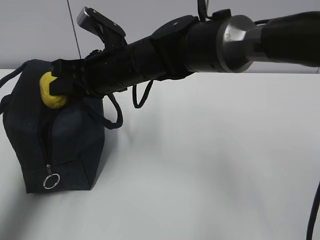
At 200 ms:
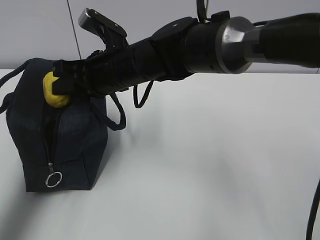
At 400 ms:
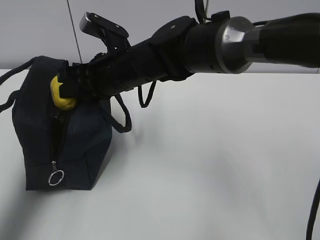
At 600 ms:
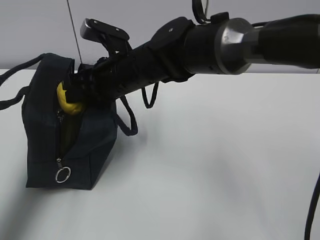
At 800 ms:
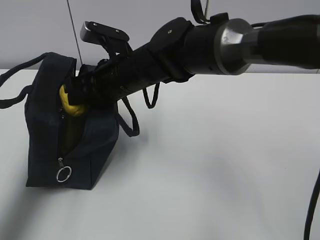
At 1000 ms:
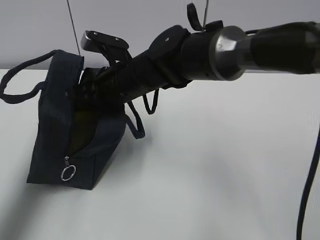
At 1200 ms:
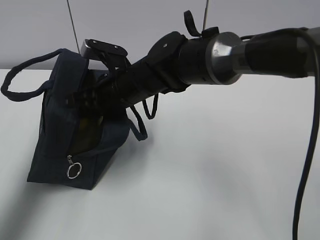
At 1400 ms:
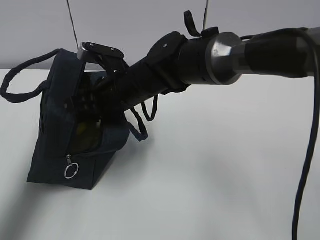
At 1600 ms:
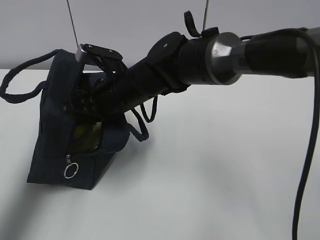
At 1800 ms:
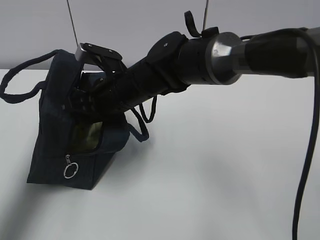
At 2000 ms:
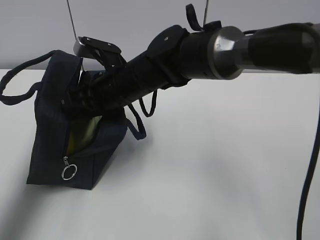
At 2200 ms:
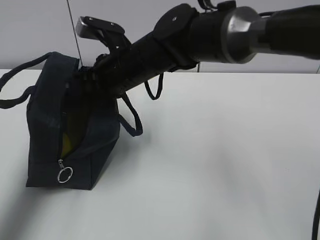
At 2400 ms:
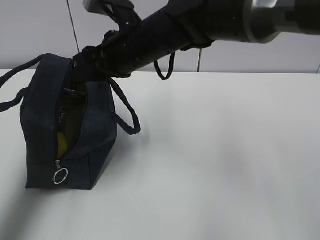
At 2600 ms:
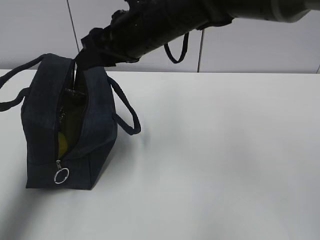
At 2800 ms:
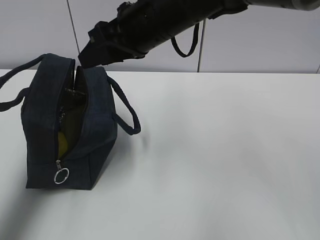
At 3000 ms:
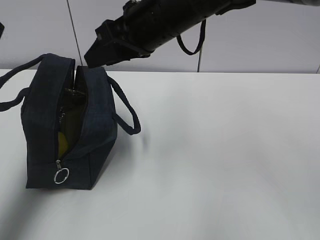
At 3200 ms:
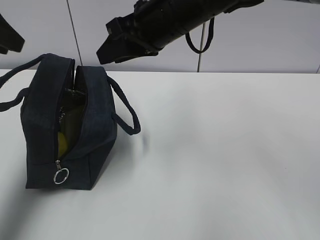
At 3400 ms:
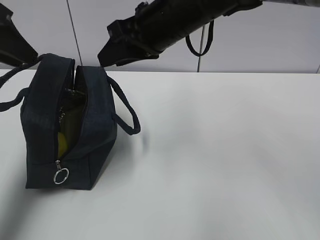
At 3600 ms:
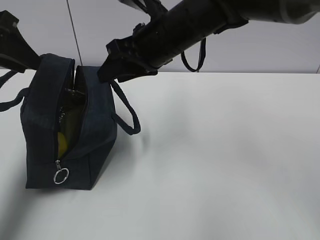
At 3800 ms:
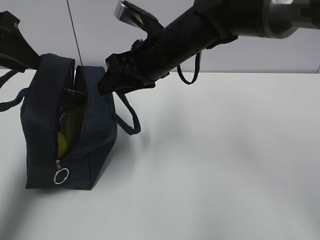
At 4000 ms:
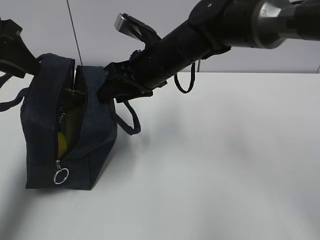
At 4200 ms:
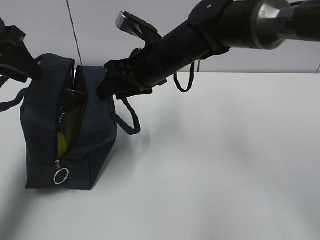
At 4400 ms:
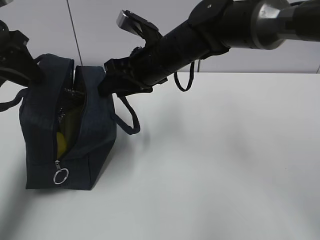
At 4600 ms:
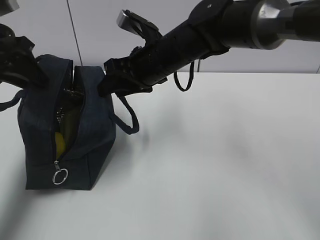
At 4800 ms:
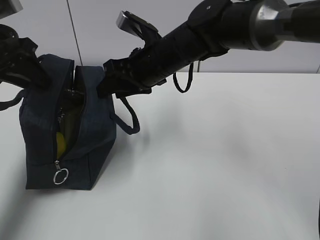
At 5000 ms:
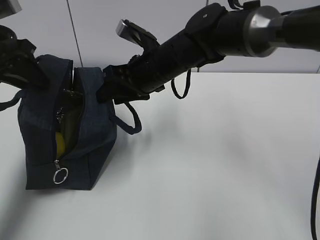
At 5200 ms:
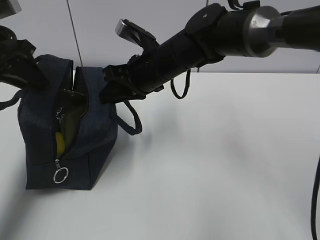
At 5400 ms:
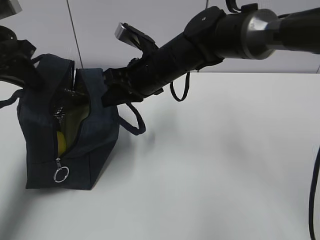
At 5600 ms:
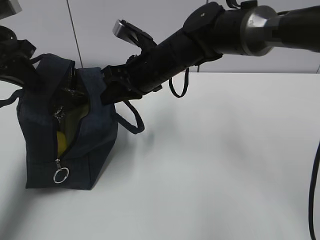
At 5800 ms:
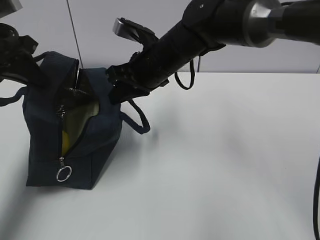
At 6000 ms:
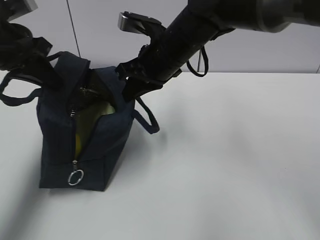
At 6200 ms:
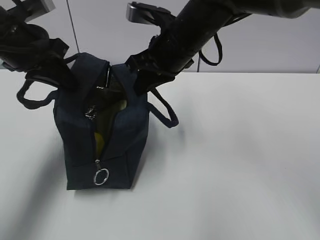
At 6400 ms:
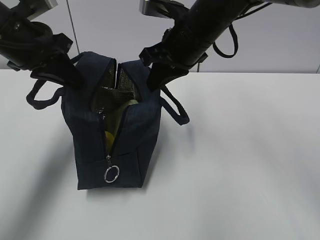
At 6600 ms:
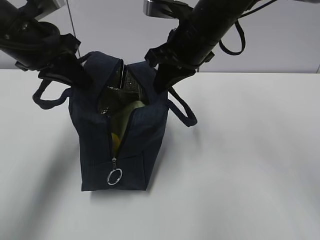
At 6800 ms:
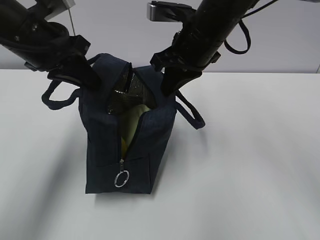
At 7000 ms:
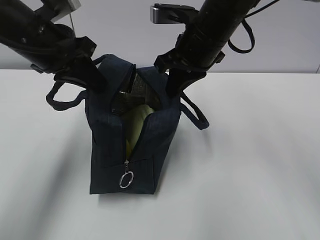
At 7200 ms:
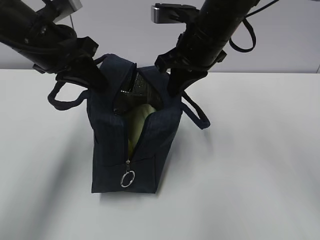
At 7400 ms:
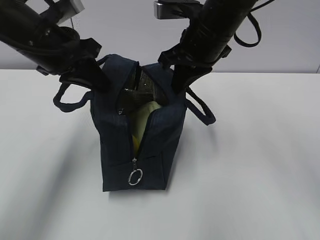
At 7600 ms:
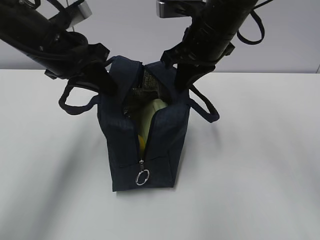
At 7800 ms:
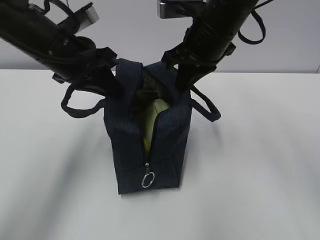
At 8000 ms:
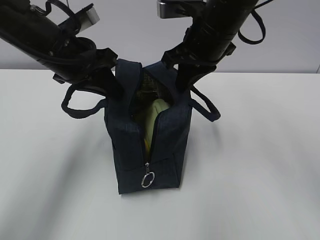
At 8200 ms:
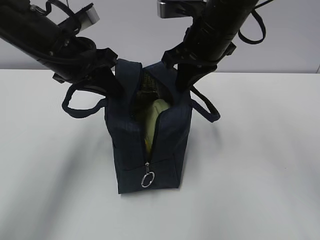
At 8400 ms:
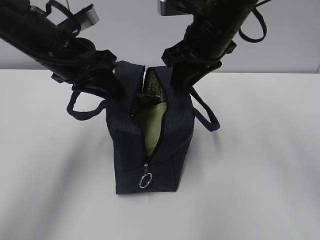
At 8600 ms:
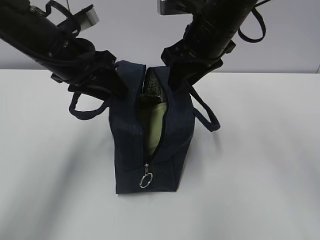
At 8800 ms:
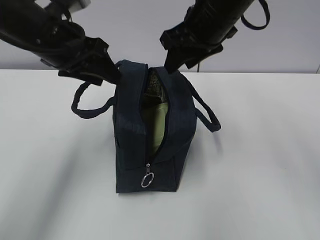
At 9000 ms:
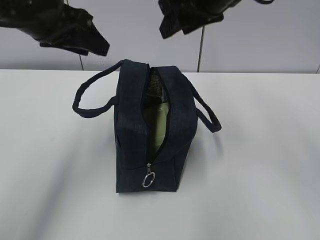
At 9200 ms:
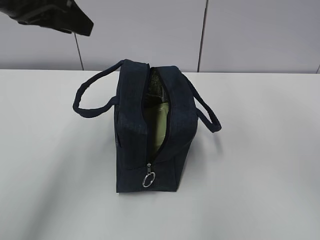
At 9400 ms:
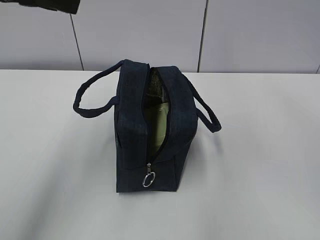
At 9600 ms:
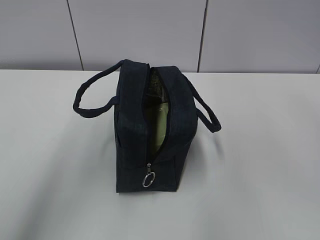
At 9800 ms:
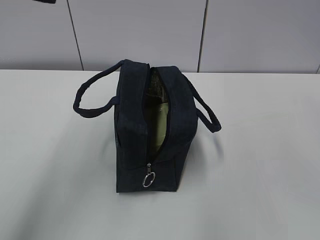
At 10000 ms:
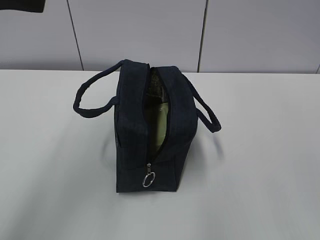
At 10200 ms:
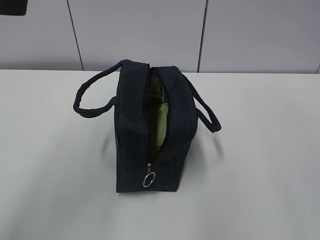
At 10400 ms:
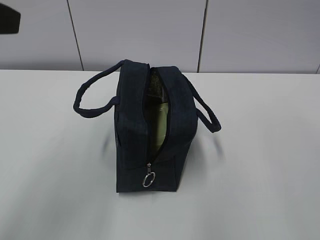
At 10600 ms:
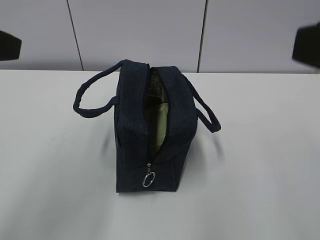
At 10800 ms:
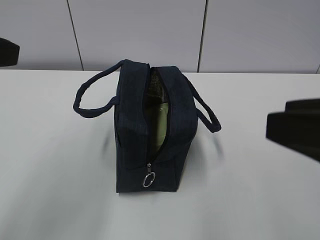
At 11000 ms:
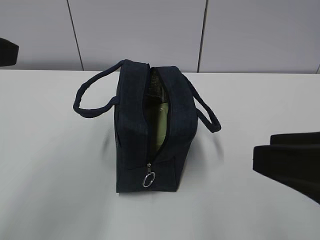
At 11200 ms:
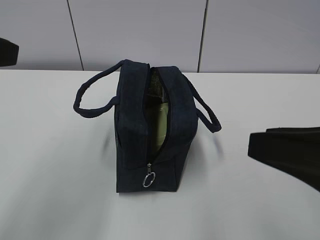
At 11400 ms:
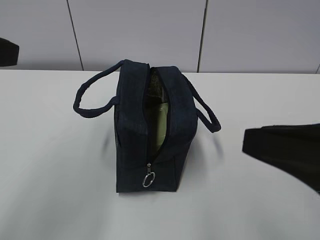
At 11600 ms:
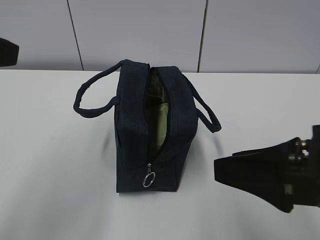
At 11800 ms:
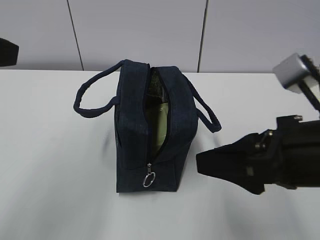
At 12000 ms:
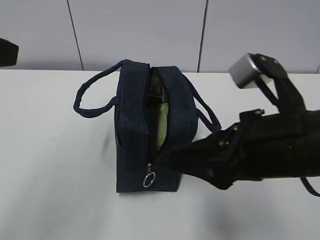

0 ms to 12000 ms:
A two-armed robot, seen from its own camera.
1600 ms to 3000 ms: The right gripper shifts roughly 15 cm upward and to the right.
3000 ms to 4400 ms: The right gripper moves downward, approximately 10 cm. Meanwhile the left gripper goes about 10 cm downward and forward.
4400 ms to 6000 ms: The right gripper closes its fingers, while the left gripper closes.
6000 ms to 7600 ms: The grippers both shift to the right by some 5 cm.
7600 ms to 9000 ms: The grippers both shift upward by approximately 5 cm. The right gripper opens up. The left gripper opens its fingers.
9000 ms to 10400 ms: The left gripper moves backward and to the left, roughly 15 cm, while the right gripper heads backward, covering approximately 25 cm.
10400 ms to 12000 ms: The right gripper is displaced downward and to the left by roughly 15 cm.

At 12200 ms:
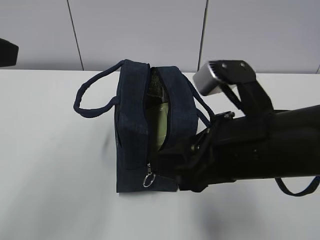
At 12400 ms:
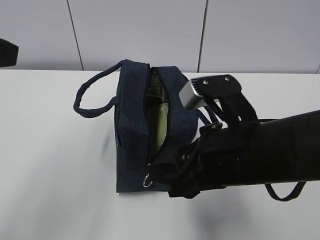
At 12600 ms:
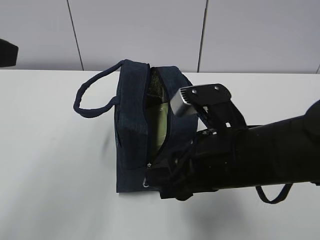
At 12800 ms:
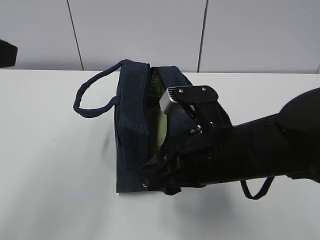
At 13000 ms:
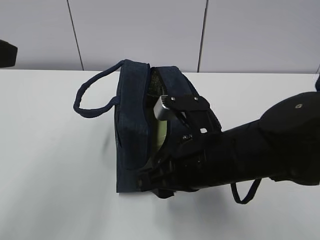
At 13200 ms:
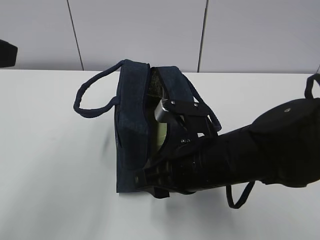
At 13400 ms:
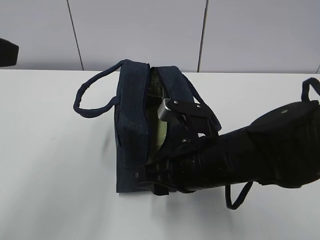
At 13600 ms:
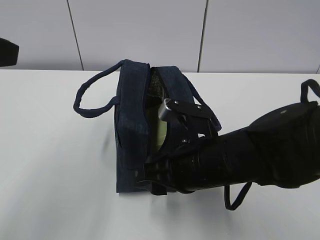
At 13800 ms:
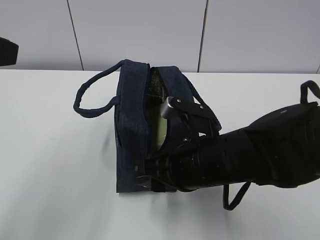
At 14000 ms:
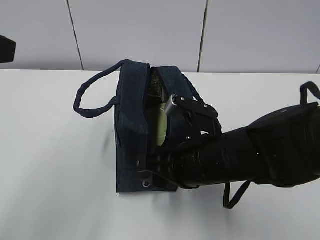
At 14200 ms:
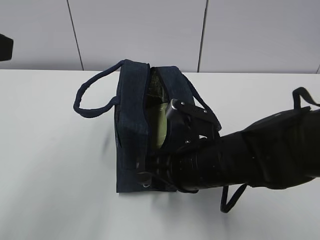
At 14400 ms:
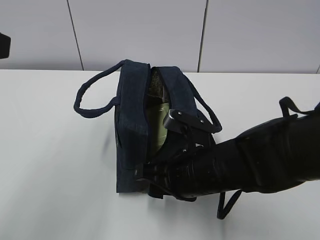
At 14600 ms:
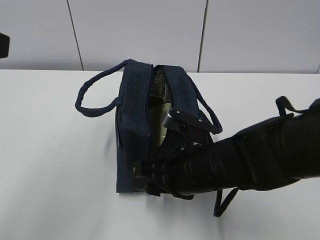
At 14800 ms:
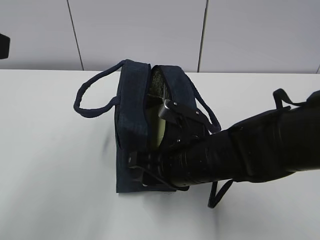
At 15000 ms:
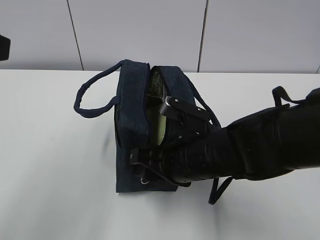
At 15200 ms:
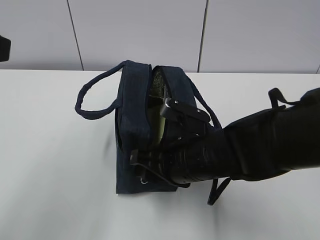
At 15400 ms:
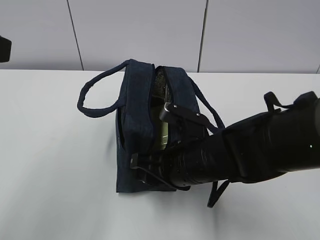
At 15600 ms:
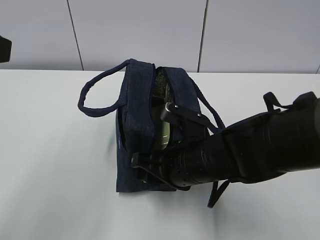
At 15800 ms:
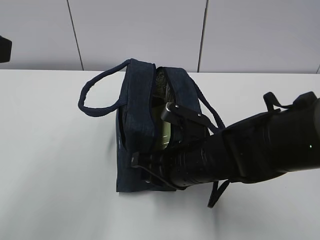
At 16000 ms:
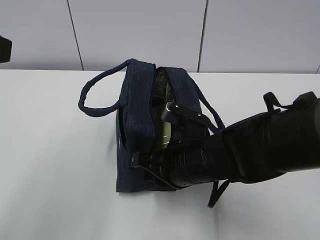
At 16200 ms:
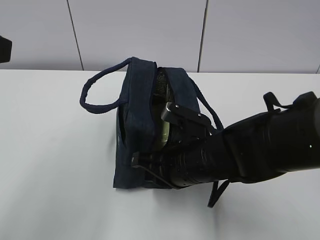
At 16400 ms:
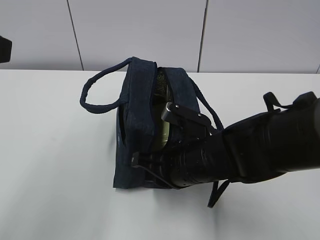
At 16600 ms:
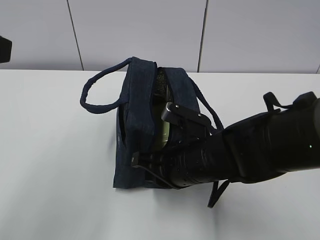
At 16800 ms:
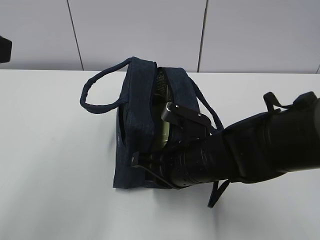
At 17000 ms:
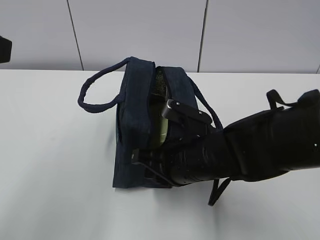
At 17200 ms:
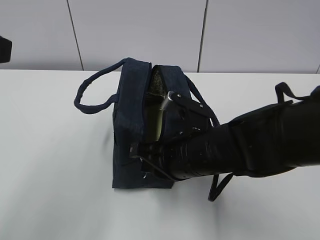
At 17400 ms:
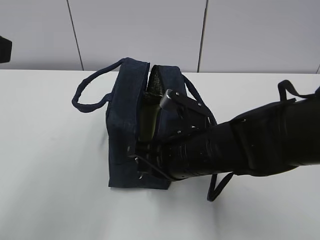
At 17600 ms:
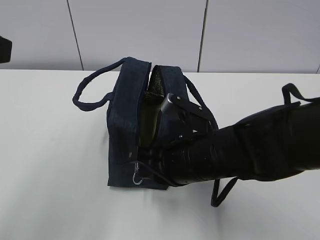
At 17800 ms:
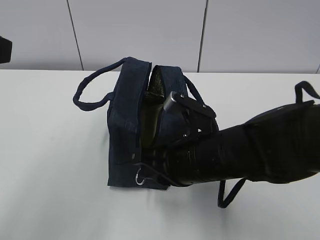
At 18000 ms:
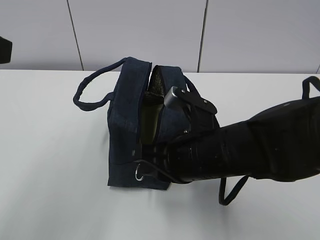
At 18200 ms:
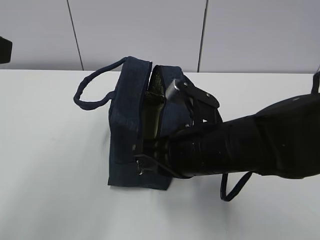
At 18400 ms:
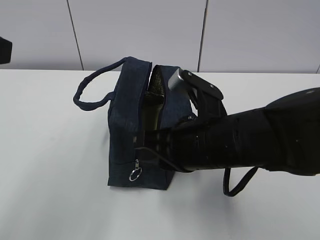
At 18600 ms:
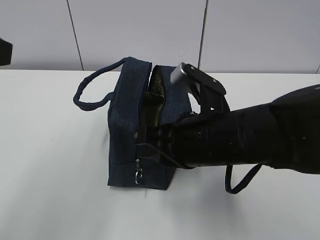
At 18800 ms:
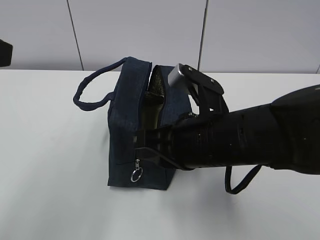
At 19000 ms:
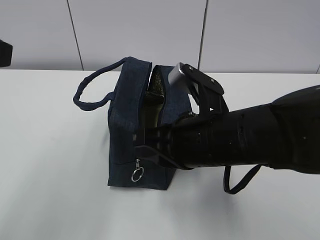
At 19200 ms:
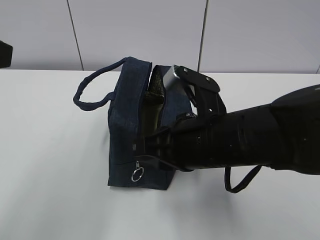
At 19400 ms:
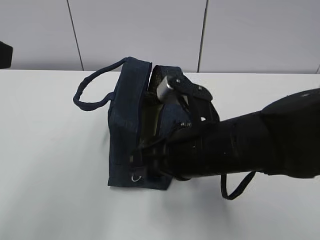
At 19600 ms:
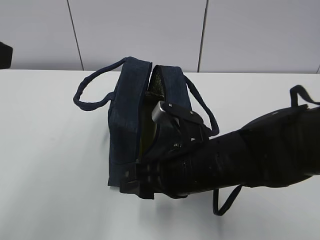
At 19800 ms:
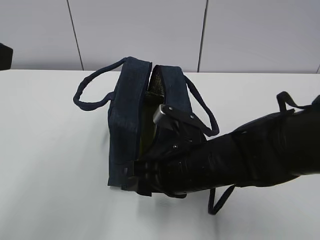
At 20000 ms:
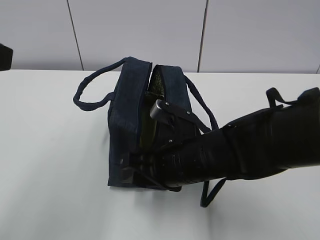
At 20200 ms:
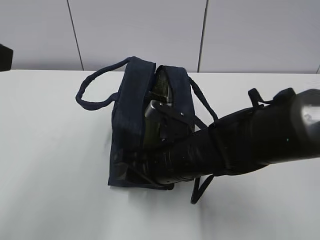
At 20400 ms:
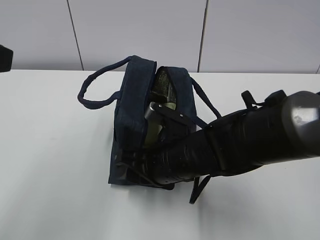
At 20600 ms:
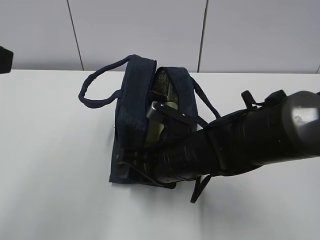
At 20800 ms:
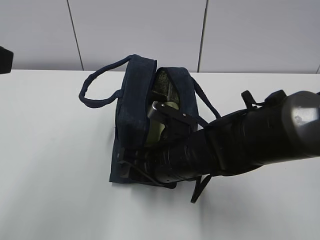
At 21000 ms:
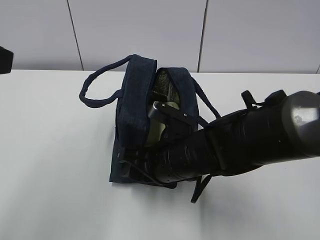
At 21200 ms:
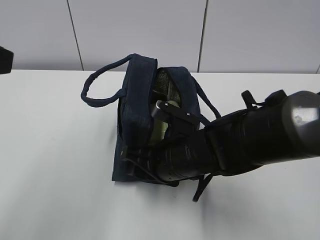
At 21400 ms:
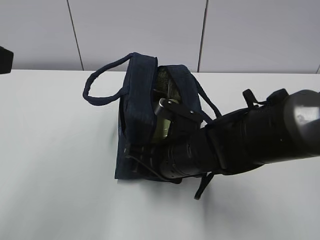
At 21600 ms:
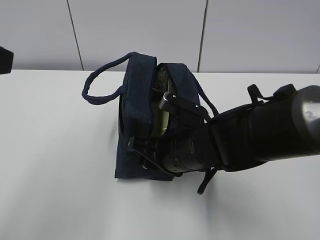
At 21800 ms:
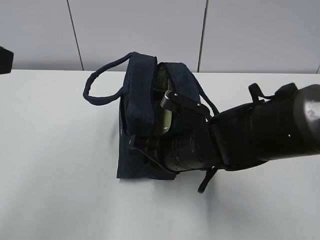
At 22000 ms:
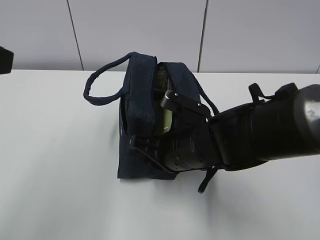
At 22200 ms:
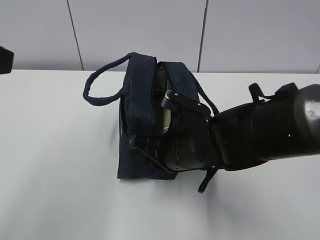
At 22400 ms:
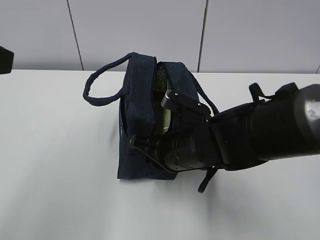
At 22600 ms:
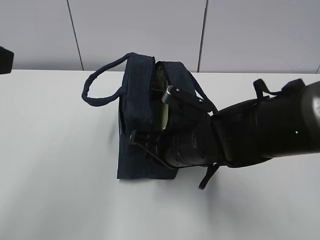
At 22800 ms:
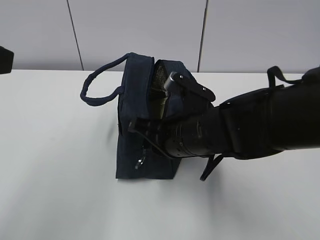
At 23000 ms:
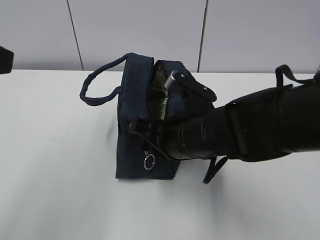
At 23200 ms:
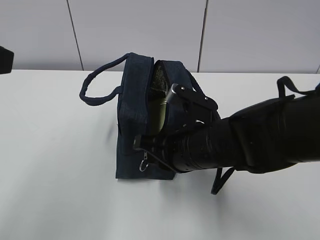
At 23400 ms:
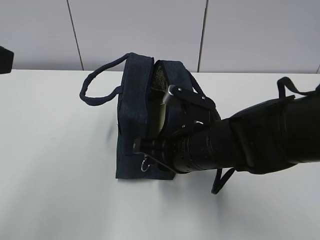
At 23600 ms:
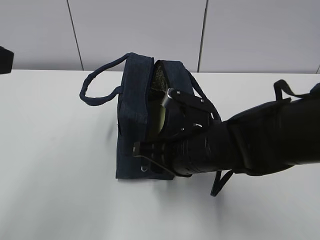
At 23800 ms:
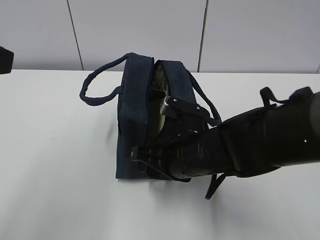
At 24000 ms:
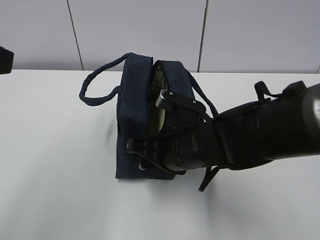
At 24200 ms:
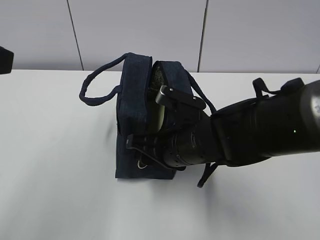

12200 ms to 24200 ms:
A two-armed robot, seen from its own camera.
12200 ms to 13800 ms: The right gripper heads downward, covering some 5 cm.
13800 ms to 15200 ms: The grippers move only a little.
15200 ms to 16600 ms: The right gripper closes up.
16600 ms to 18200 ms: The right gripper heads upward, covering approximately 5 cm.
18200 ms to 19800 ms: The right gripper opens.
19800 ms to 21200 ms: There are only small adjustments of the grippers.
21200 ms to 22600 ms: The right gripper closes.
22600 ms to 24200 ms: The right gripper opens up.
